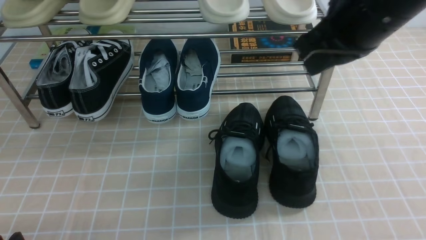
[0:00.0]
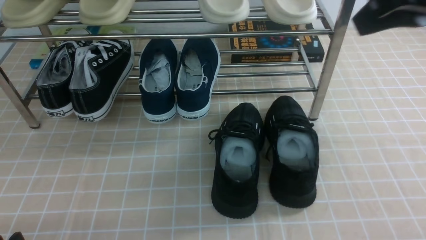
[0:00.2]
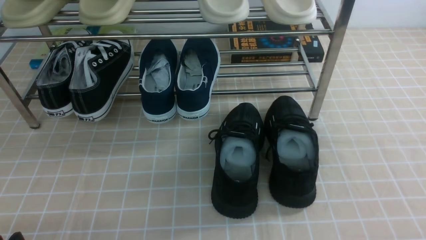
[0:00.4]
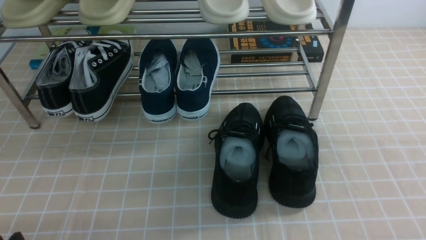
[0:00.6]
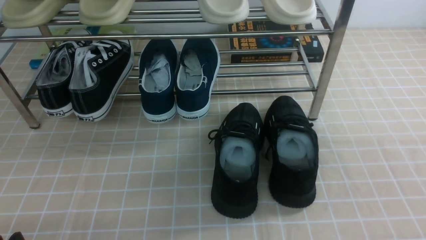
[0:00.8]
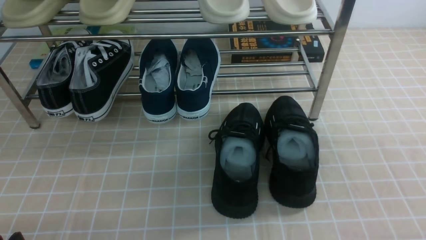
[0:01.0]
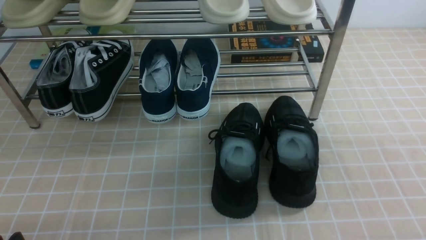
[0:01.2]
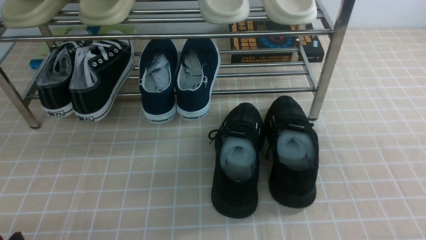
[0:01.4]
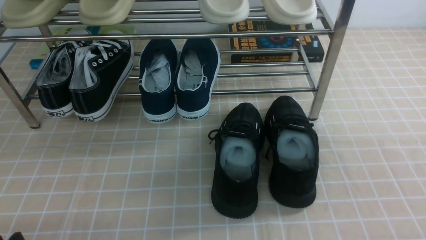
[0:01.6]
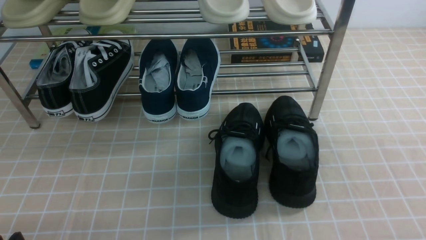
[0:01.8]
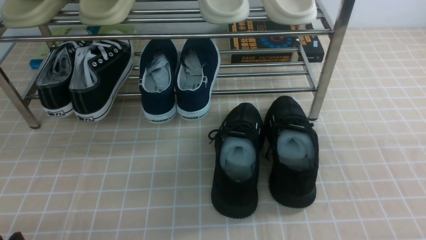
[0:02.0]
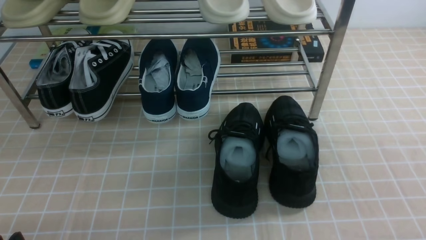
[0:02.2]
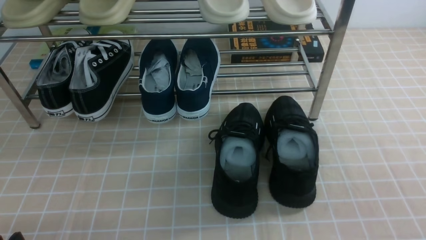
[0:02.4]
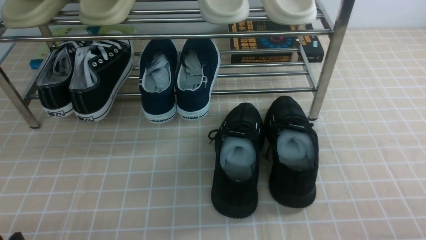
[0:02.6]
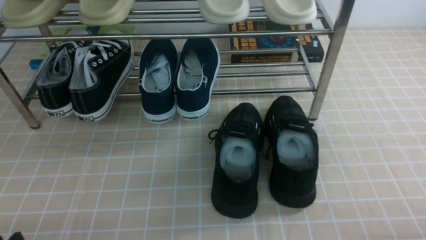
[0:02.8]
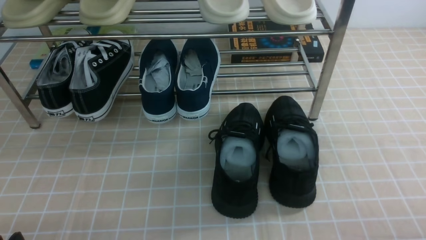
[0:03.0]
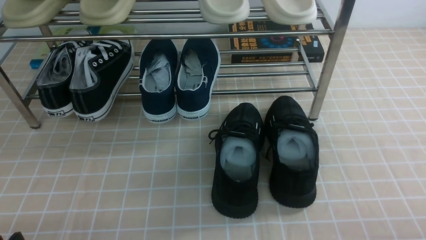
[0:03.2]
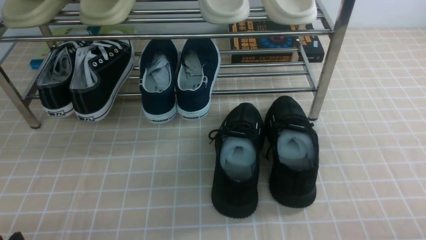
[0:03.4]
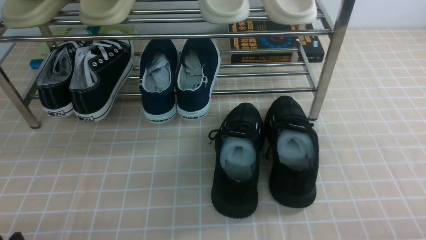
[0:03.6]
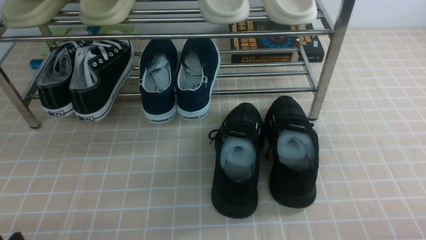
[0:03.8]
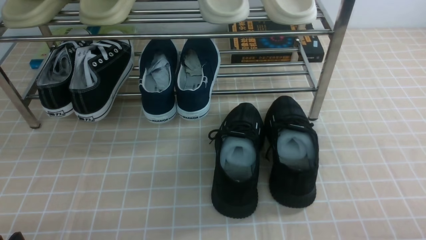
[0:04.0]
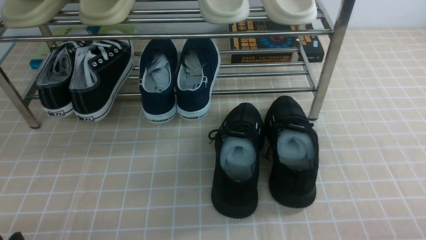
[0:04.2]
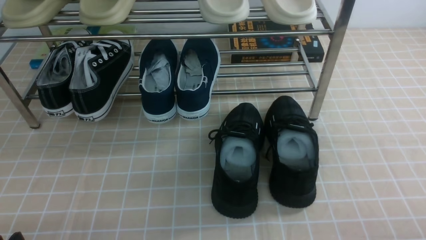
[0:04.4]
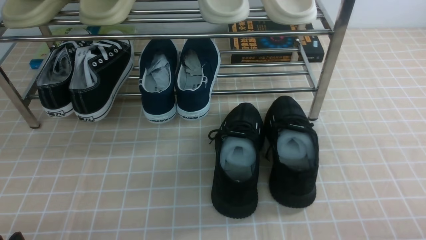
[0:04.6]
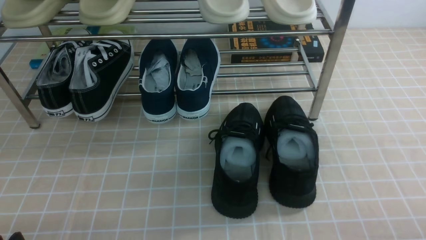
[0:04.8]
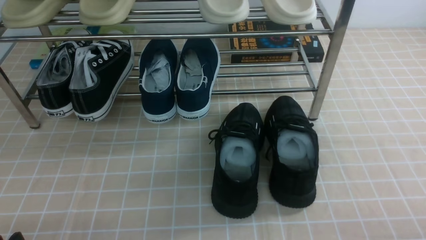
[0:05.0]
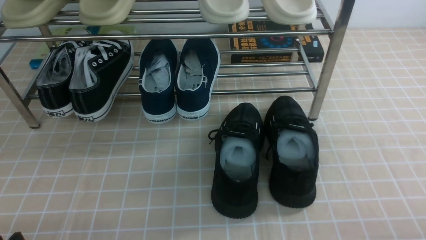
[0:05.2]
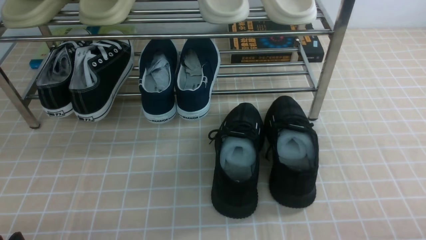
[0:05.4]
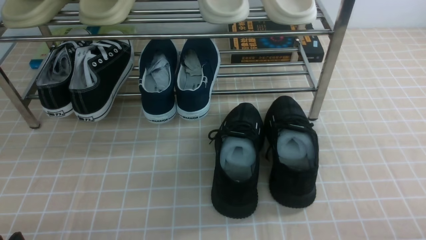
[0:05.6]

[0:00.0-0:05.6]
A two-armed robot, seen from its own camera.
0:00.0 to 0:01.4: The right gripper heads backward, to the right and downward, covering roughly 25 cm.
0:04.2 to 0:05.6: Neither gripper changes place.

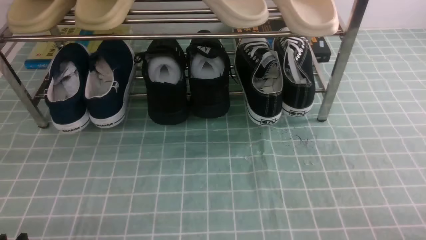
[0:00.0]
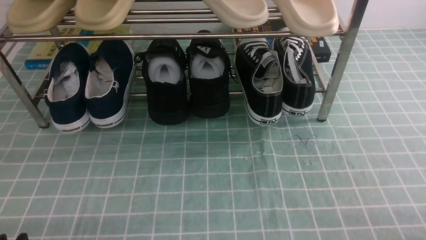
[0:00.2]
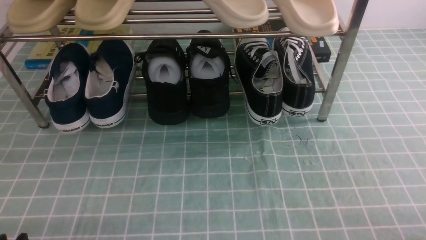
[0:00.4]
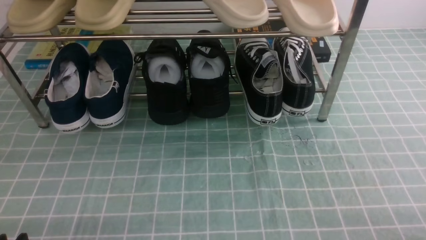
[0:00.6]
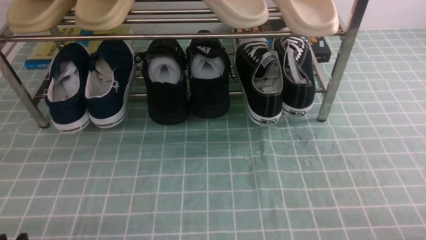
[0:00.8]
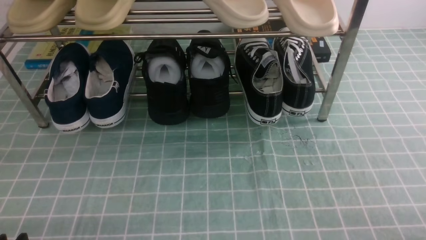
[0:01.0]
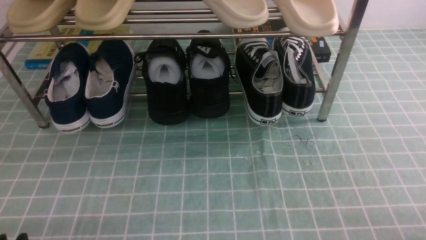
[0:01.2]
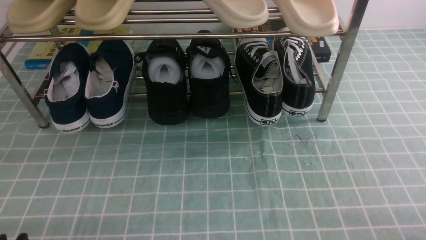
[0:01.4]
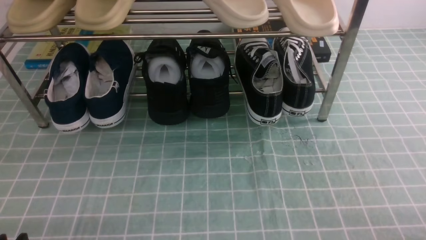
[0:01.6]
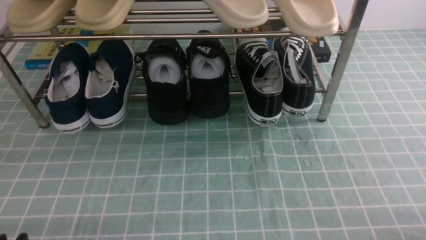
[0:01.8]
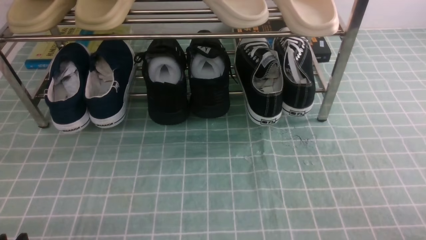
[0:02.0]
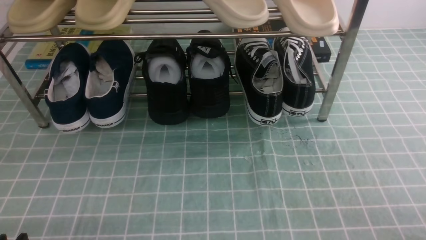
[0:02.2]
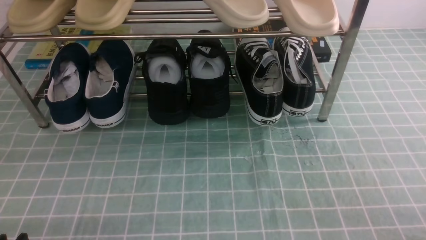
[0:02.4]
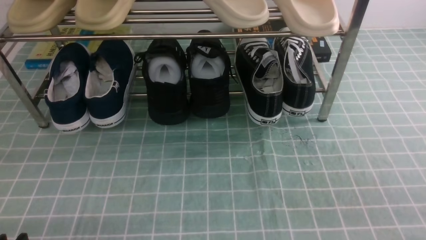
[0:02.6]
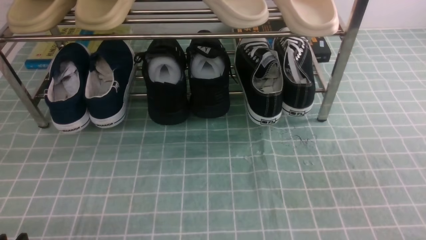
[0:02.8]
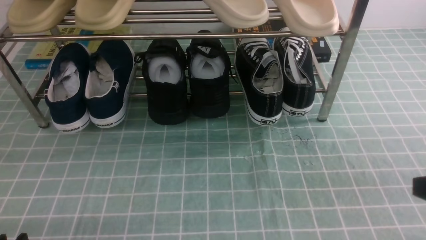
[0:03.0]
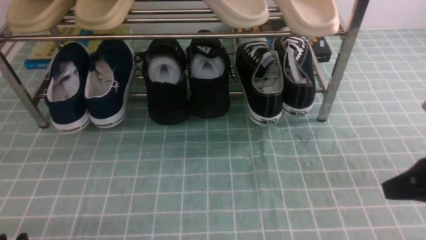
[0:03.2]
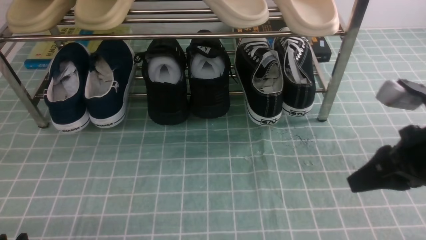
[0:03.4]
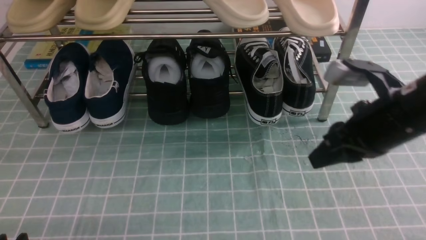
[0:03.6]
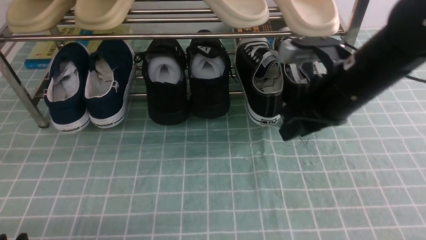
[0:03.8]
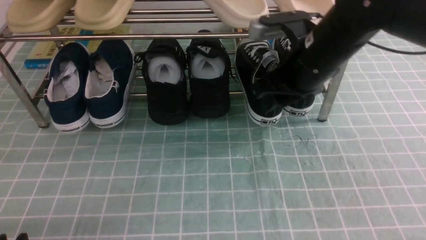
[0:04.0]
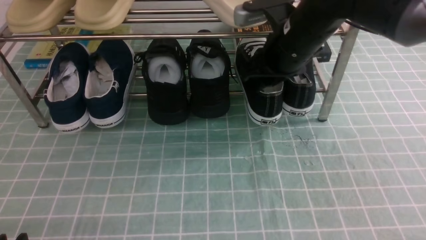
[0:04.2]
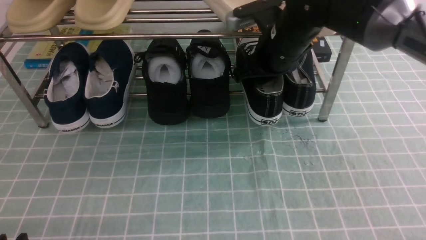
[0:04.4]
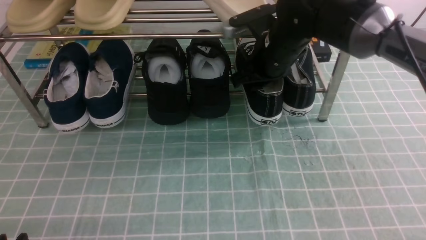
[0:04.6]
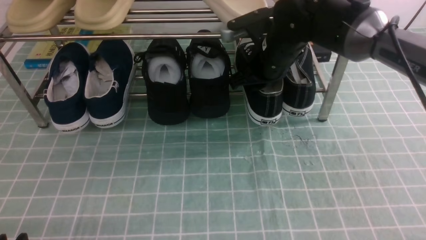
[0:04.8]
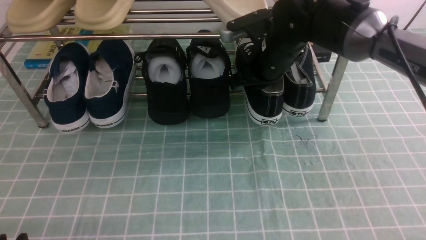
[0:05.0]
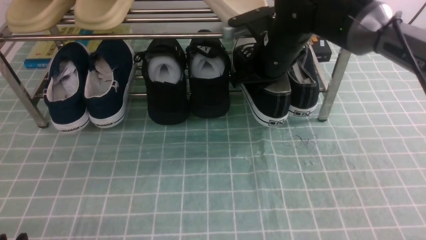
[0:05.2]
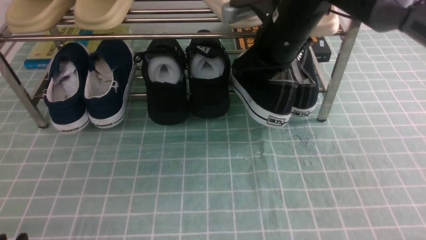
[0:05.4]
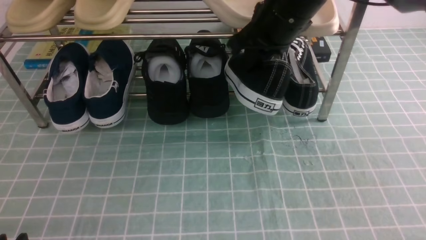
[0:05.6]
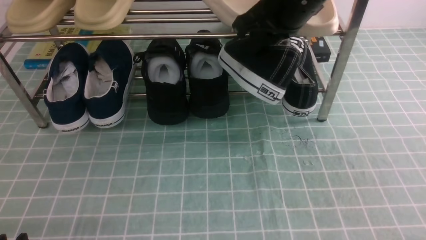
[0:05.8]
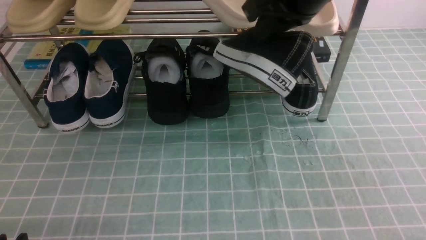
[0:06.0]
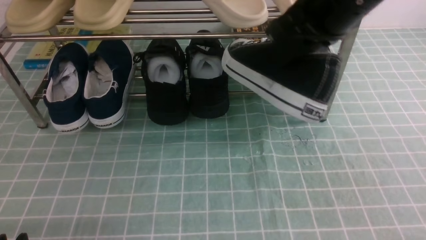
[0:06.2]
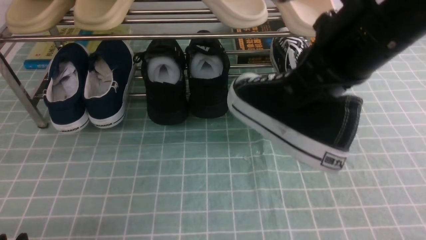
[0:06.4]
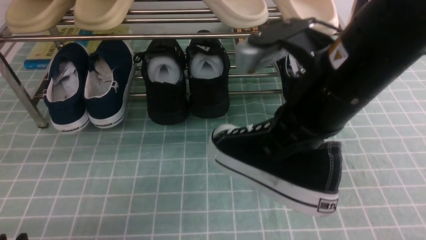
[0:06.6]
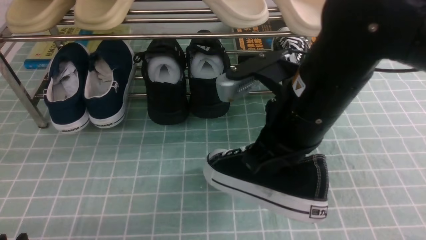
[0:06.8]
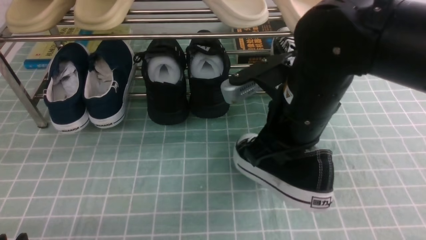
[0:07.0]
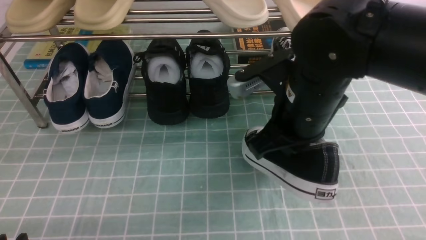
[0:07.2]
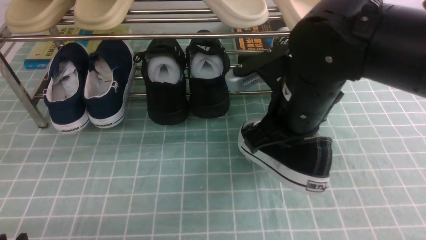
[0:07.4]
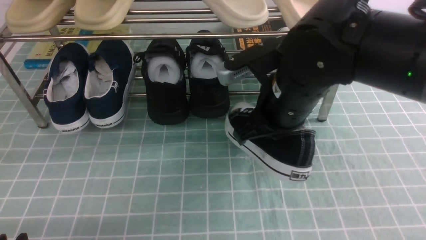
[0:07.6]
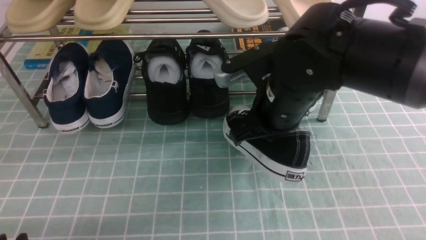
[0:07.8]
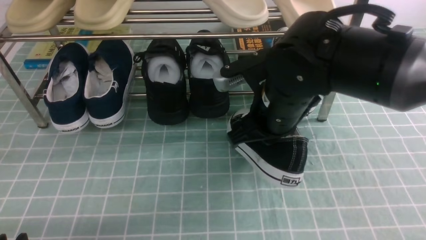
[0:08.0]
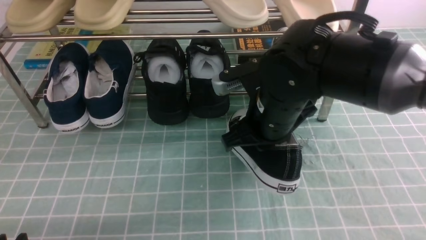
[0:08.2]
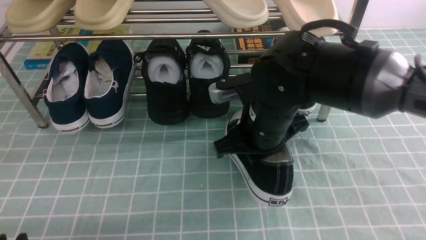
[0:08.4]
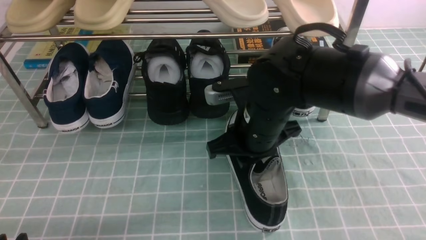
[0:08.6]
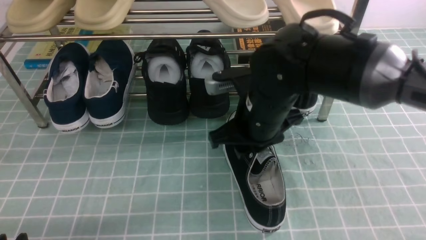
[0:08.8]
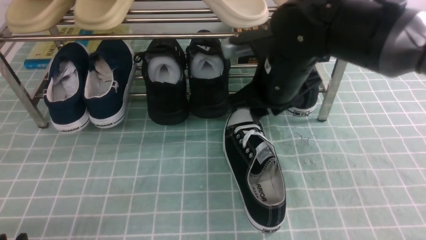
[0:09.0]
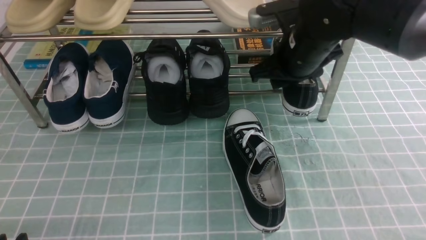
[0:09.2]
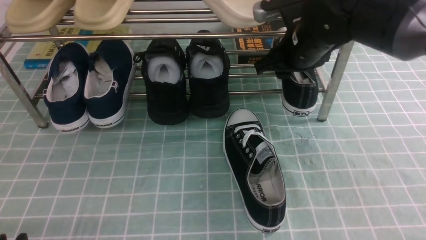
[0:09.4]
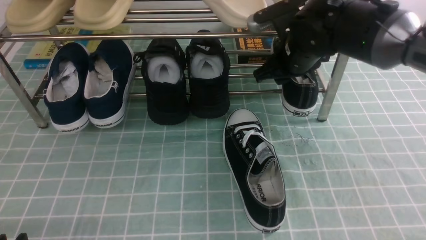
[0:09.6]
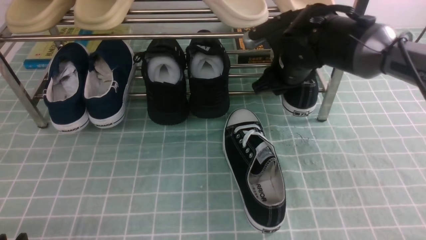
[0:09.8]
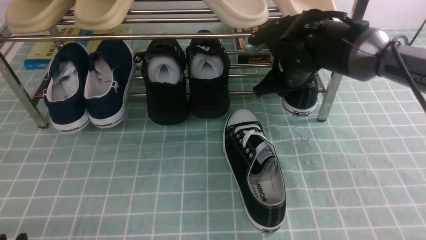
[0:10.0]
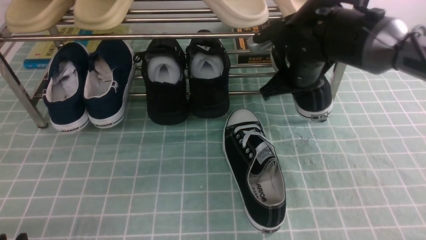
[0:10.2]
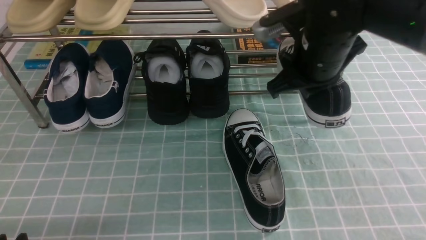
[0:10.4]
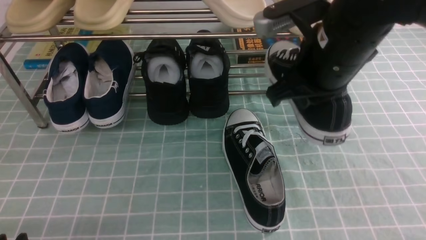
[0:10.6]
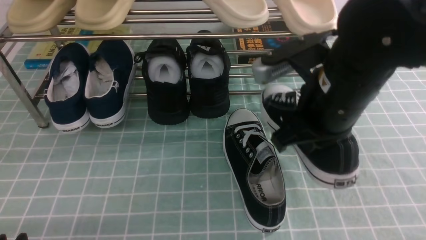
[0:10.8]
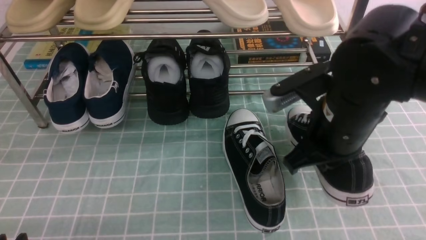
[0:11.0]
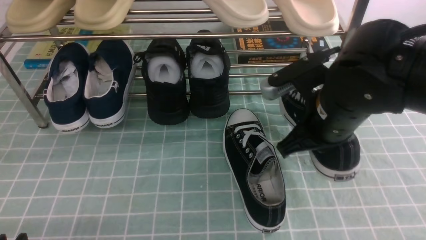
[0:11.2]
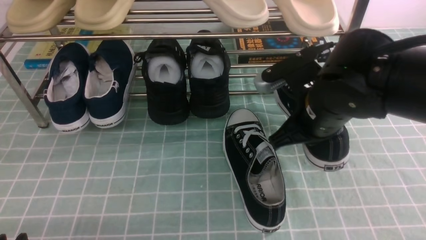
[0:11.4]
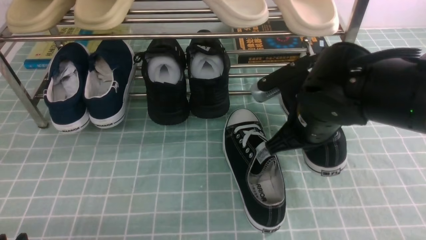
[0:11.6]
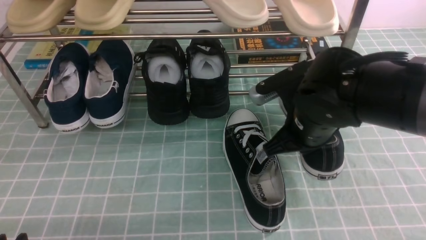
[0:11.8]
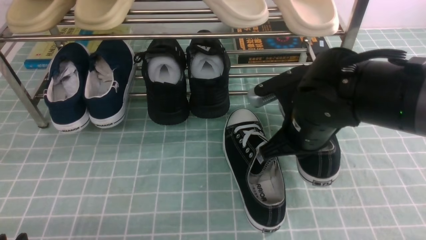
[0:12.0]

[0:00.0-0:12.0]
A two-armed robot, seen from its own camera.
Step, 0:00.0 to 0:05.2: use the right arm to clamp a shoe on the right side of the shoe rack.
Step, 0:05.4 to 0:08.8: use the right arm to take out the clamped shoe from the shoe rack and put it down.
Step, 0:09.0 to 0:09.8: use the right arm to clamp a shoe on the right side of the shoe rack.
0:03.0 to 0:04.4: The right gripper travels forward and to the left by about 35 cm, and opens its fingers.
0:04.4 to 0:06.0: The right gripper moves upward, some 10 cm, and closes up.
0:06.0 to 0:07.6: The right gripper goes some 15 cm downward and backward.
0:07.6 to 0:09.0: The right gripper changes place by roughly 5 cm, and opens its fingers.
0:09.0 to 0:10.4: The right gripper moves to the right, approximately 5 cm, and closes up.
0:10.4 to 0:12.0: The right gripper goes some 10 cm backward and downward.
